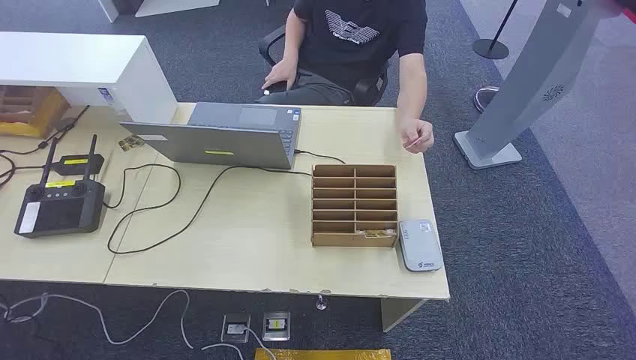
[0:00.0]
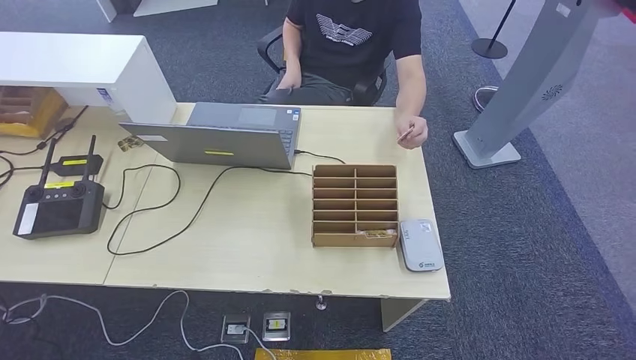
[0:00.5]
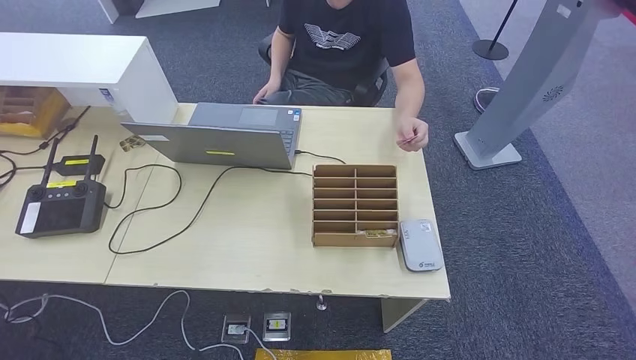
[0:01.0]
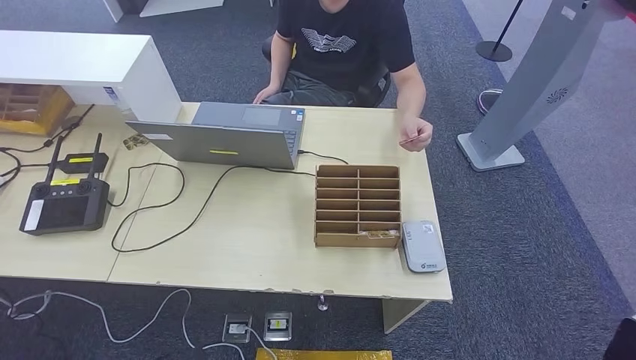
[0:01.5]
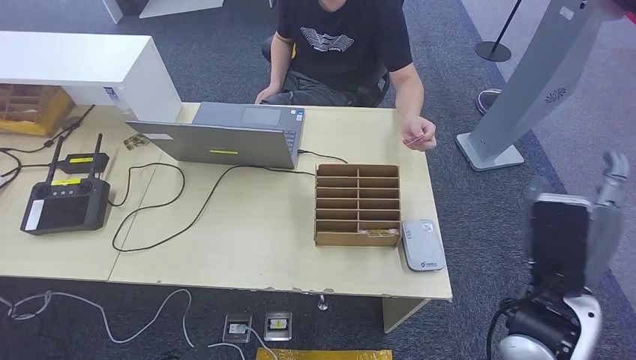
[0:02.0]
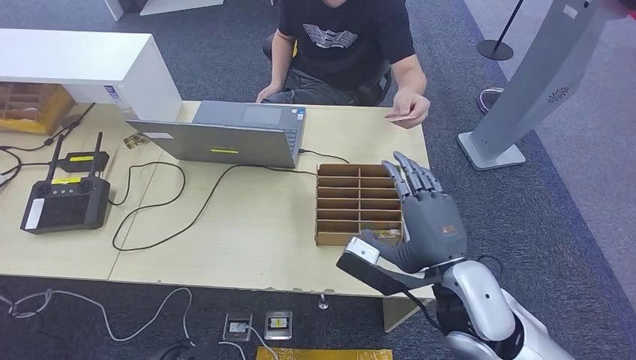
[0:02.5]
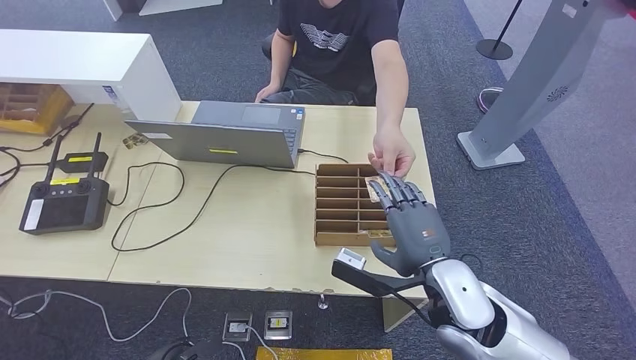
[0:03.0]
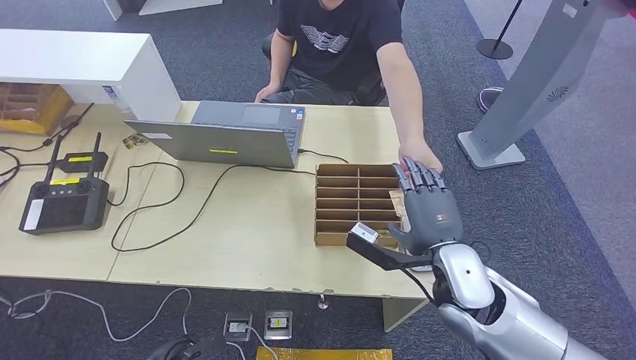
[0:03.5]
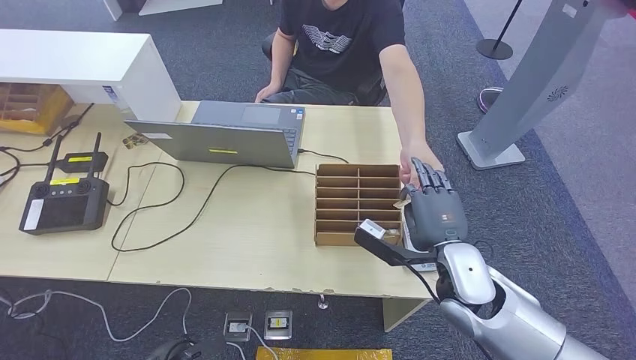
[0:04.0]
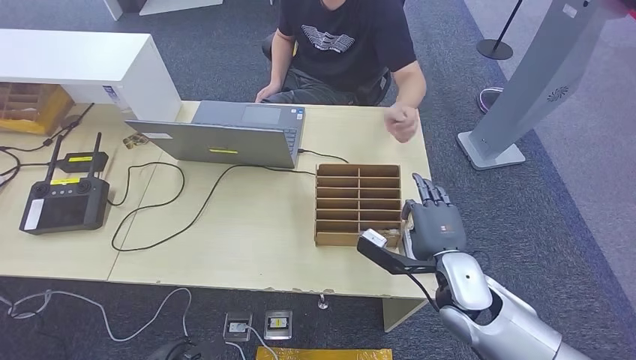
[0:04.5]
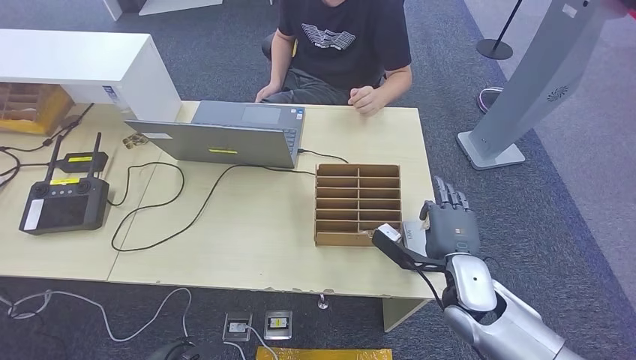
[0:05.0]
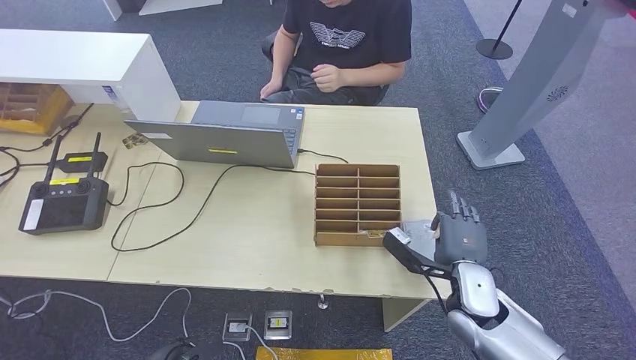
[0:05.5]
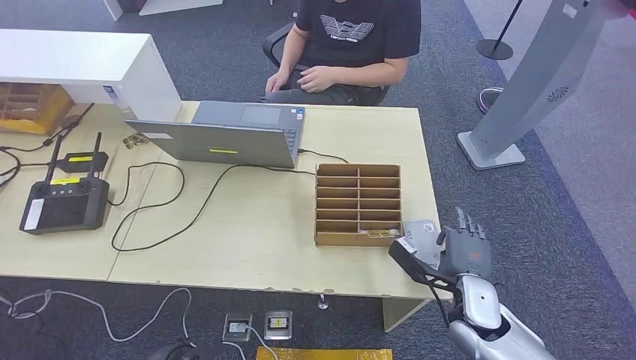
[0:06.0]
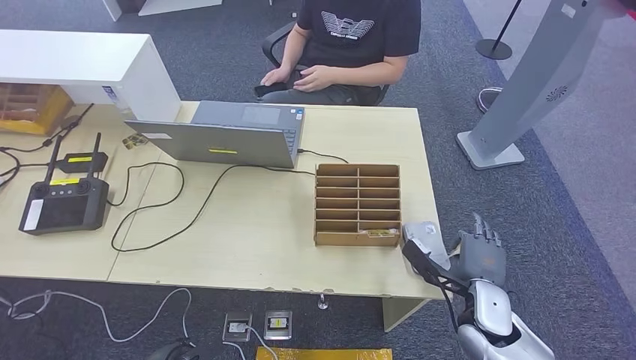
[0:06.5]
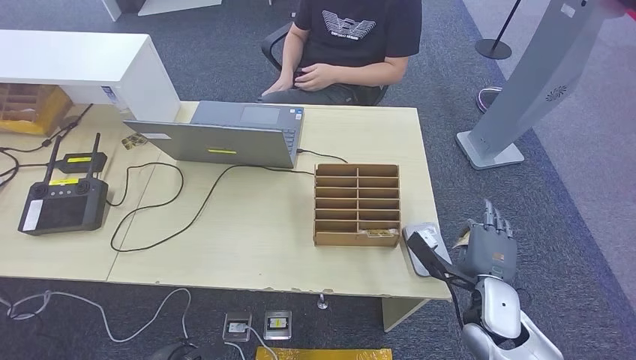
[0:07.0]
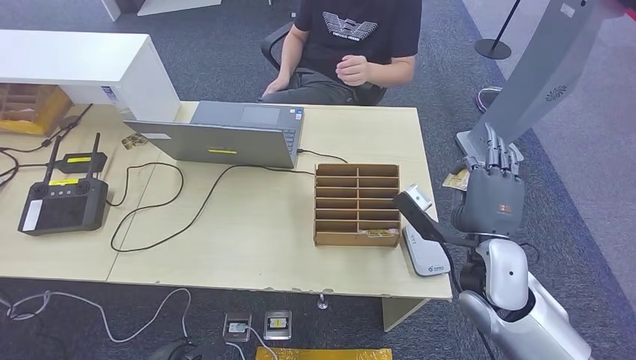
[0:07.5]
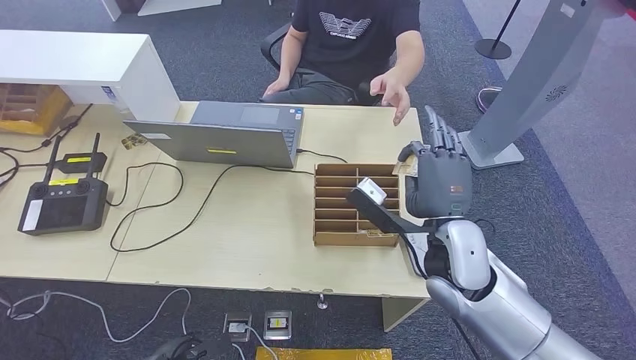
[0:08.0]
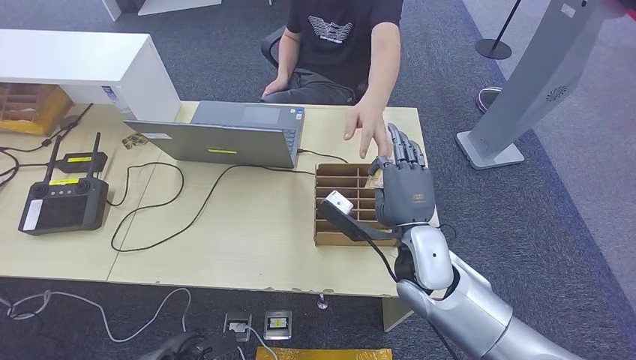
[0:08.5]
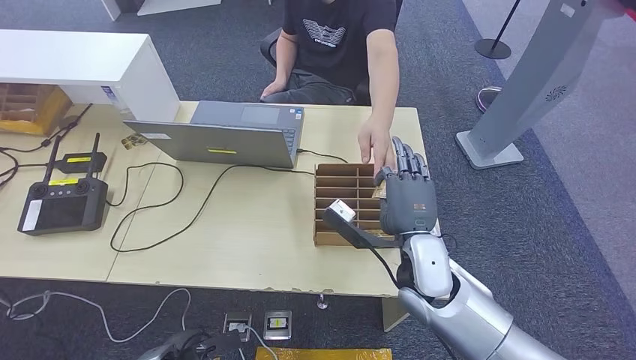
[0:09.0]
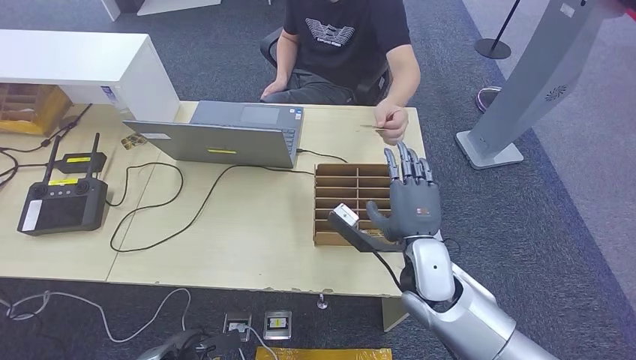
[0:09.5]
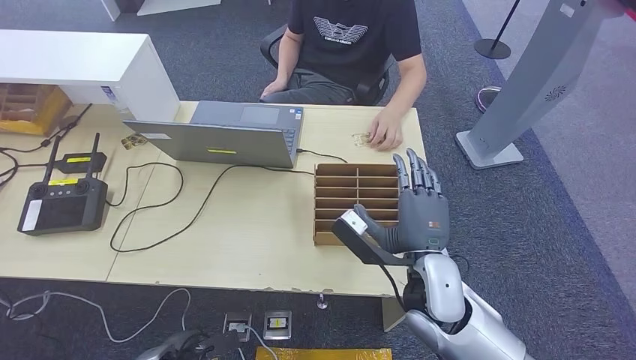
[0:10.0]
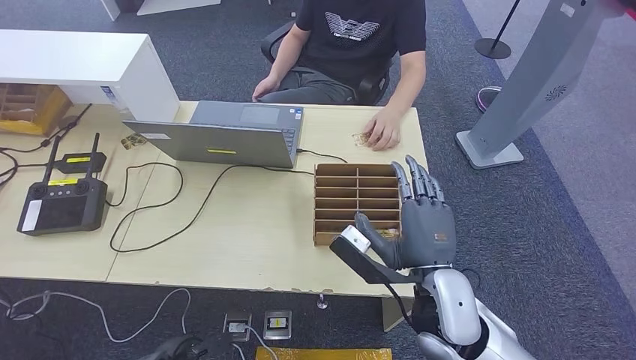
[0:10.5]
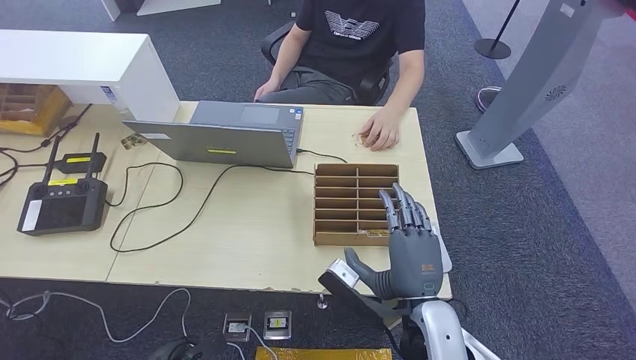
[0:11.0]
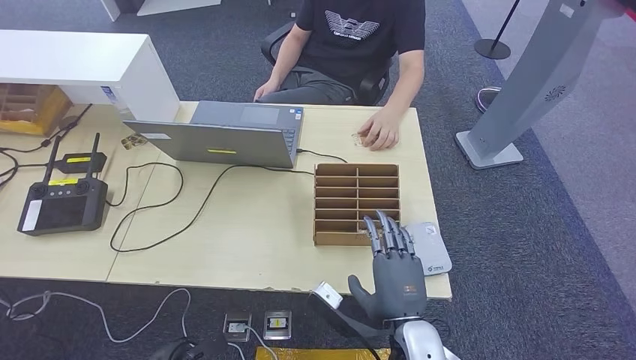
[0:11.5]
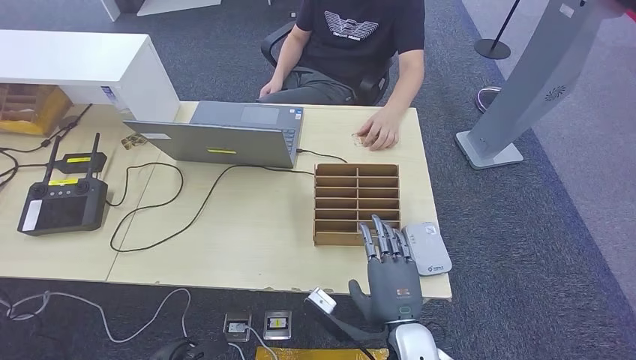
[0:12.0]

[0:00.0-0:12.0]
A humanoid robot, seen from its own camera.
Step, 0:00.0 to 0:05.0: Take the ID card from the person's hand.
Step, 0:05.5 to 0:07.5: Place the ID card on the card reader.
Step, 0:08.0 to 0:08.5: Hand the ID card to the person.
0:02.0 to 0:04.0: The right hand heads forward and downward, covering roughly 10 cm. Meanwhile the left hand moves forward, about 5 cm.
0:04.0 to 0:06.0: The right hand goes roughly 10 cm downward.
0:06.0 to 0:08.0: The right hand shifts some 15 cm upward and to the left.
0:08.0 to 0:10.0: The right hand goes roughly 5 cm downward.
0:10.0 to 0:12.0: The right hand goes approximately 10 cm backward and downward.

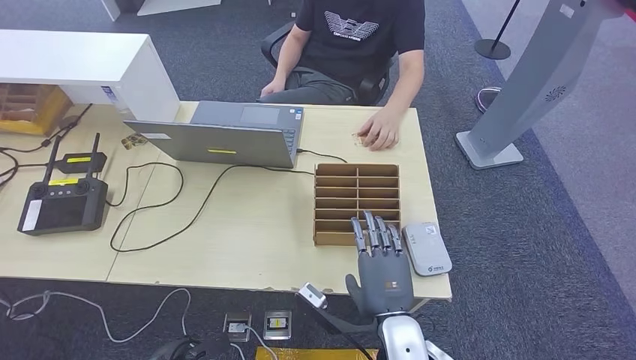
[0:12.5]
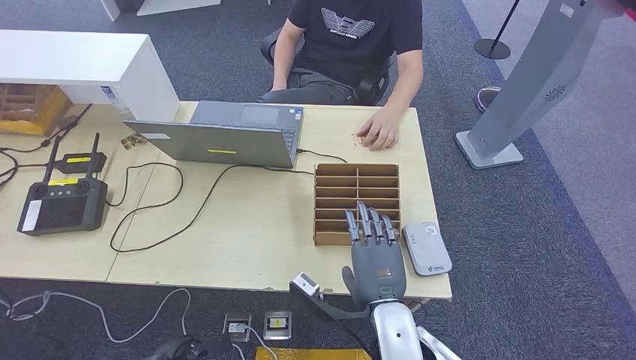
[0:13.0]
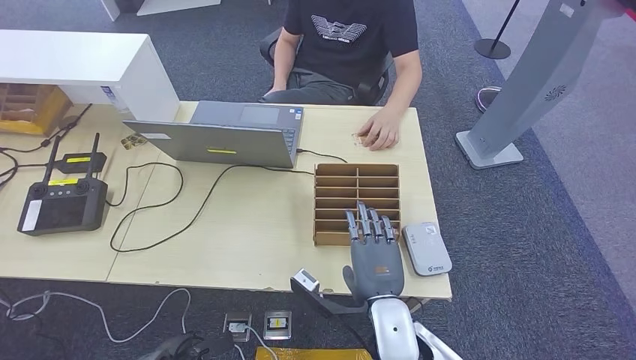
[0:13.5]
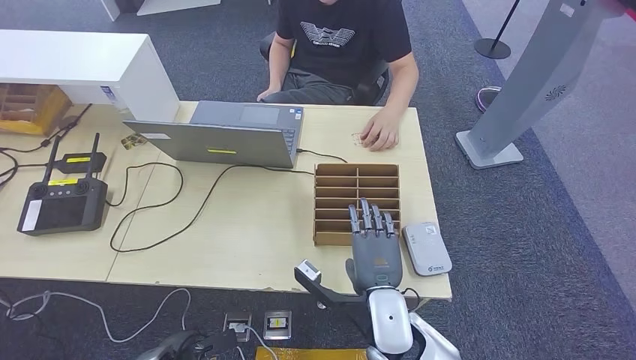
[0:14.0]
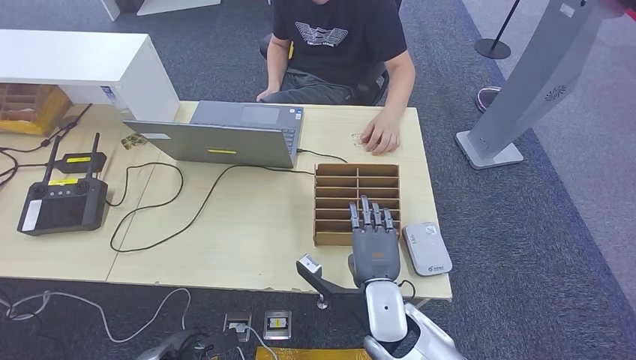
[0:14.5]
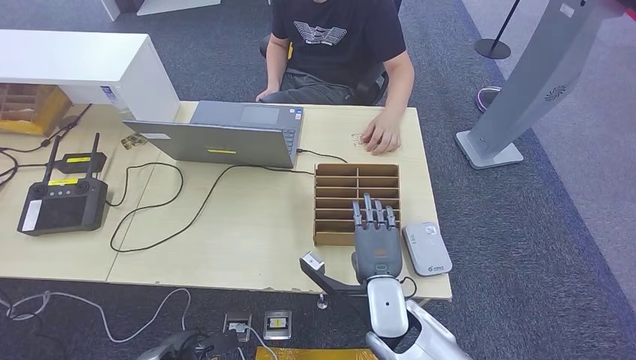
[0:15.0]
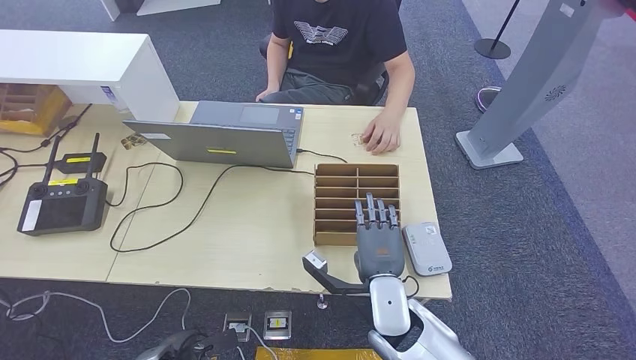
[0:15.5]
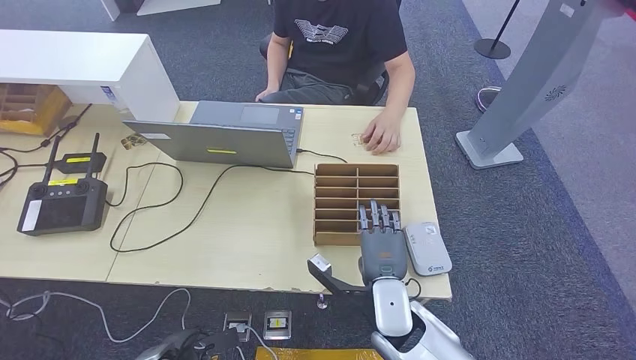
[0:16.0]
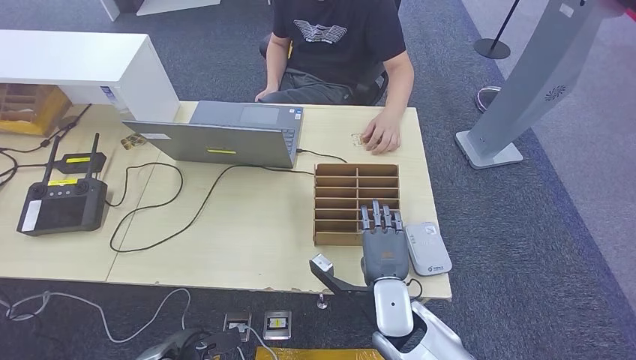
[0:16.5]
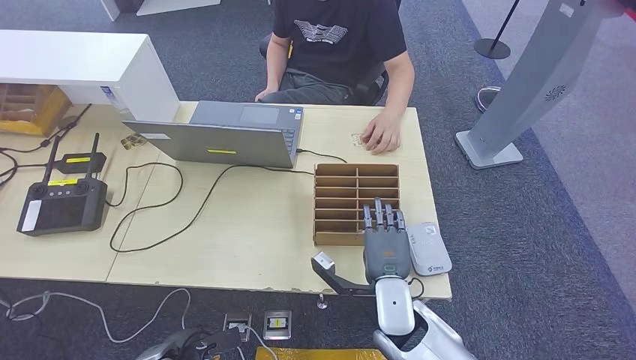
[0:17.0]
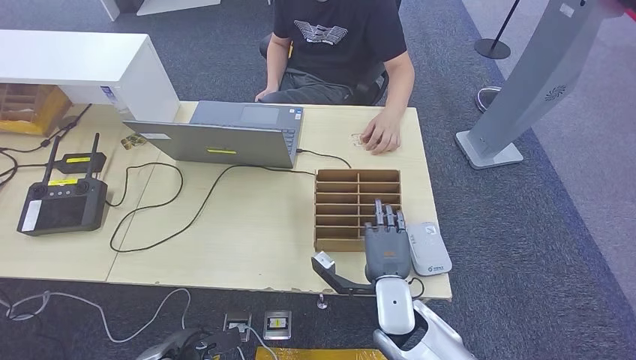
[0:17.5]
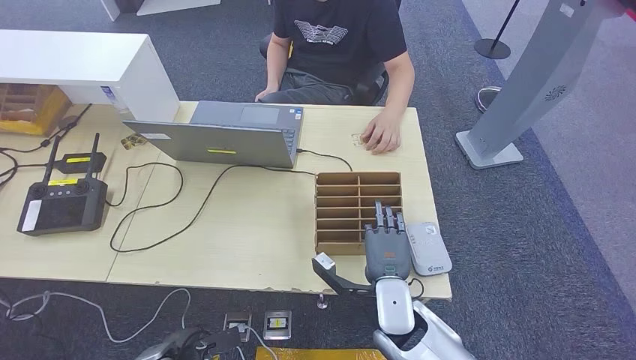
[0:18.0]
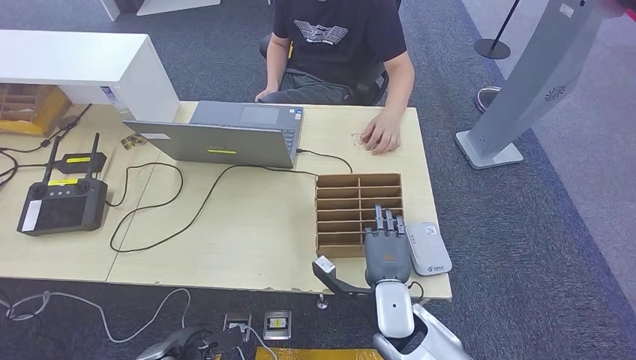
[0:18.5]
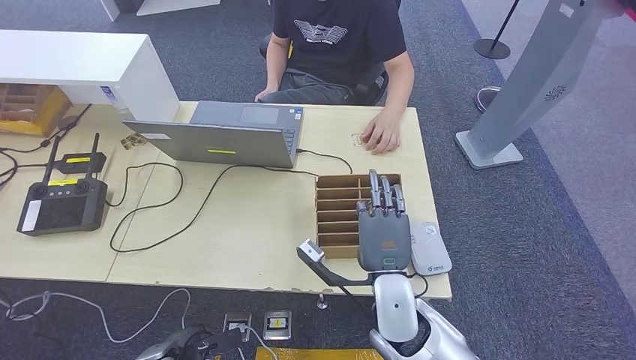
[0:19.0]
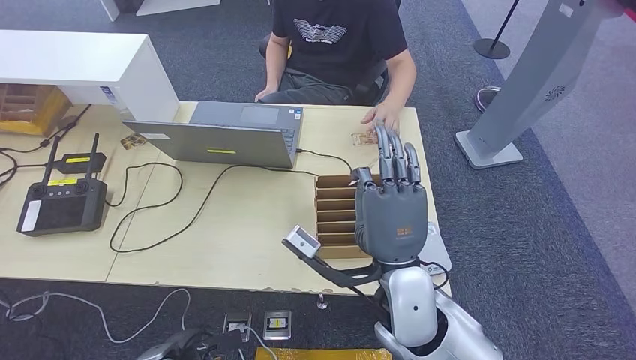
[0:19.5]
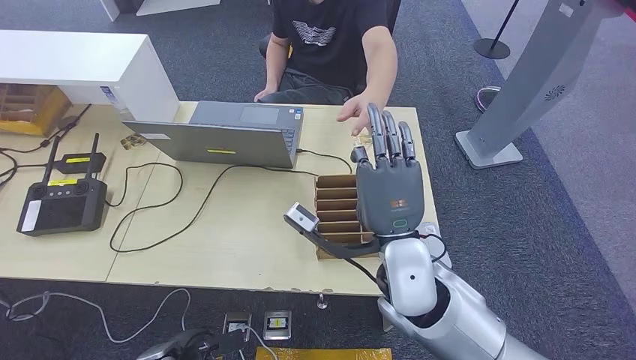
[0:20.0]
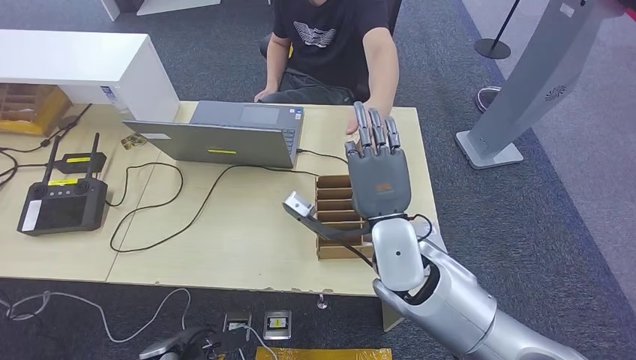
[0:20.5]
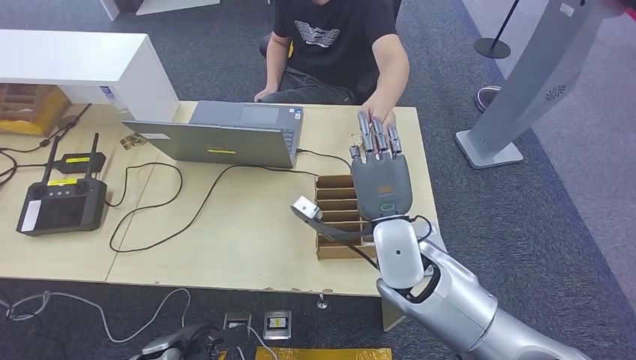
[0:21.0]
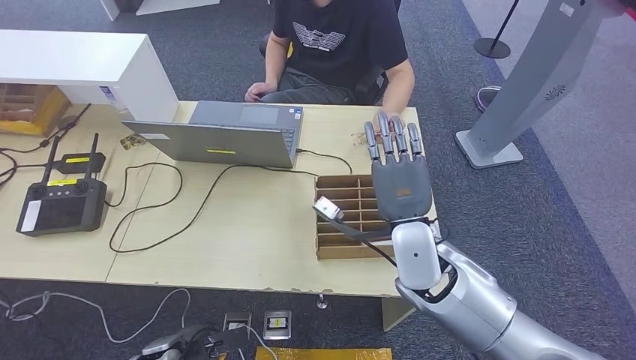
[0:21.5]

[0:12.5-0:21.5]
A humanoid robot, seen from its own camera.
Step, 0:12.5 to 0:18.5: Pick up the room key from the key card box.
Step, 0:19.0 to 0:21.5: Hand the room key to the person.
0:12.5 to 0:14.5: The right hand shifts roughly 5 cm forward.
0:14.5 to 0:17.0: The hands make only small movements.
0:17.0 to 0:19.5: The right hand travels upward by some 15 cm.
0:19.5 to 0:21.5: The right hand moves forward, approximately 5 cm.
